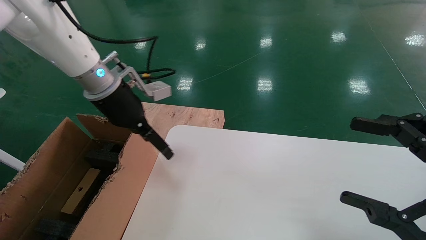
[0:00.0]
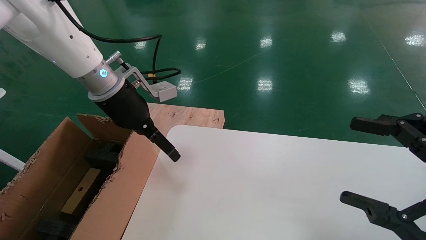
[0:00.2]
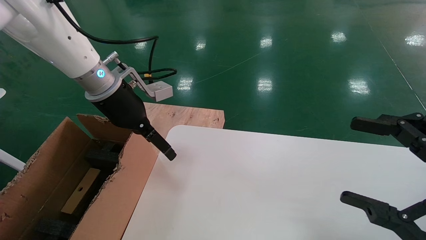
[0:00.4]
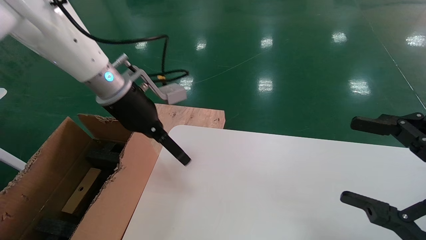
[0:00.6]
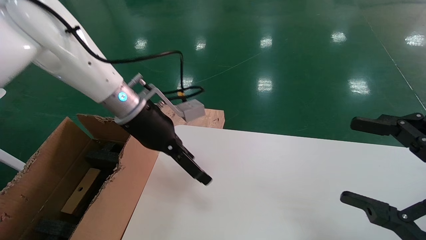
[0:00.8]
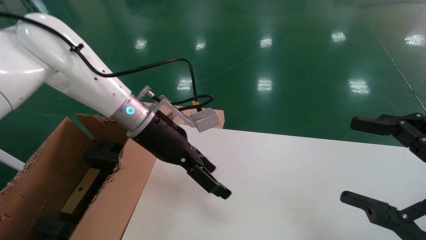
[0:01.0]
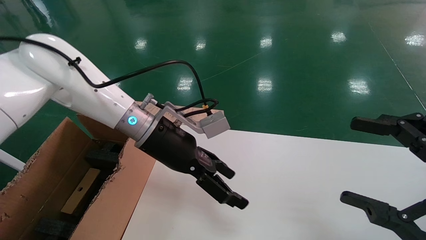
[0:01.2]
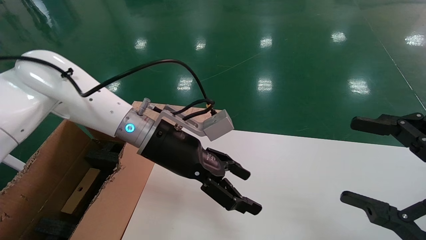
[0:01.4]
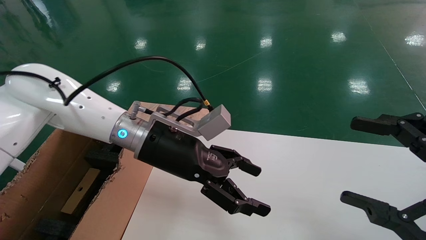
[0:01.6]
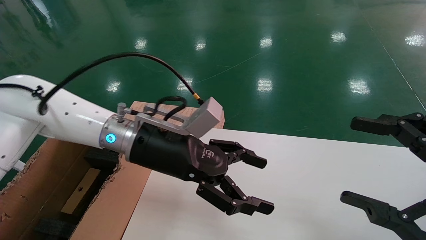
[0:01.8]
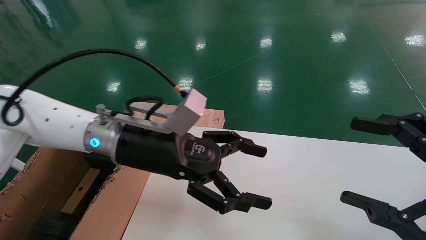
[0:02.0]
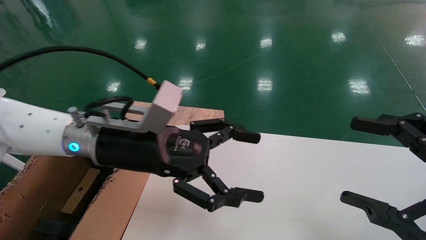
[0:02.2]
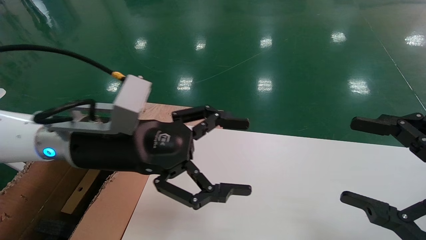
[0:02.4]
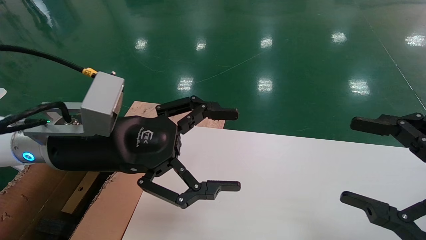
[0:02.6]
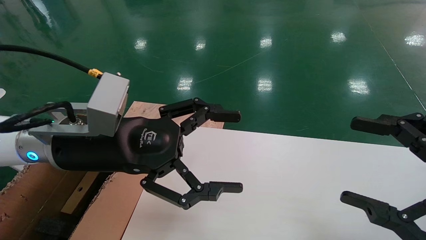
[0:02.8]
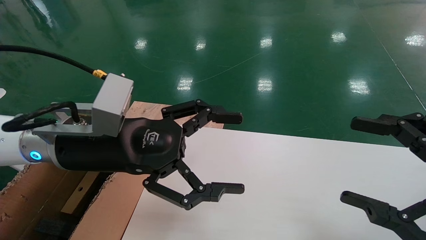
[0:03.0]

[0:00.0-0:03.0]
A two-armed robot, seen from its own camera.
Task of the whole recording: place the small box on the table into the large box on the left.
0:00.0 to 0:01.6: The left gripper shifts about 15 cm to the right, downward and backward.
0:01.6 to 0:03.0: The left gripper goes some 10 cm backward and to the left.
